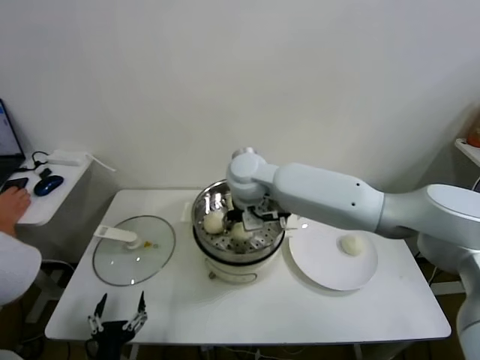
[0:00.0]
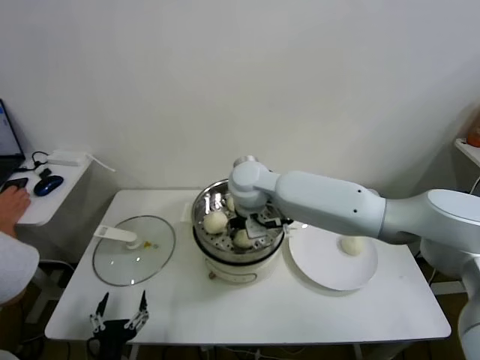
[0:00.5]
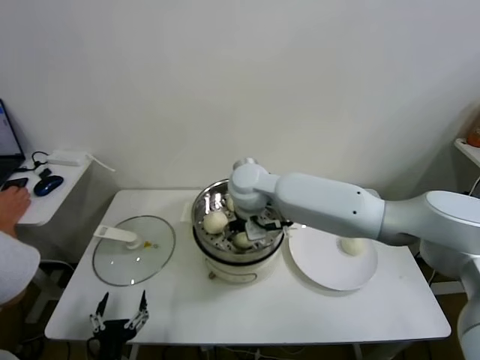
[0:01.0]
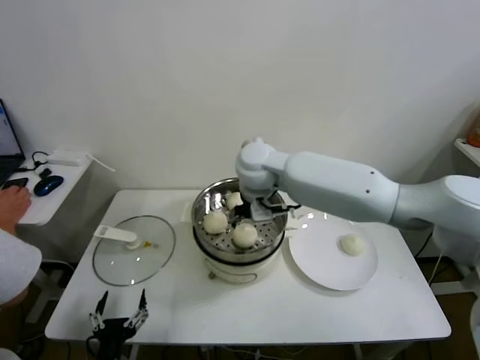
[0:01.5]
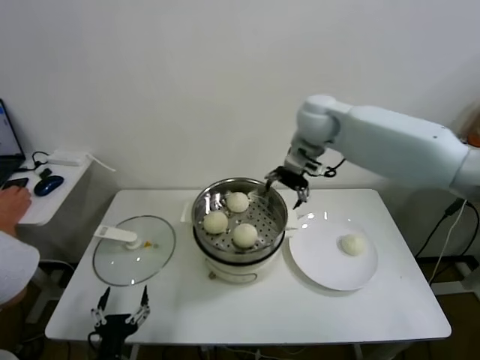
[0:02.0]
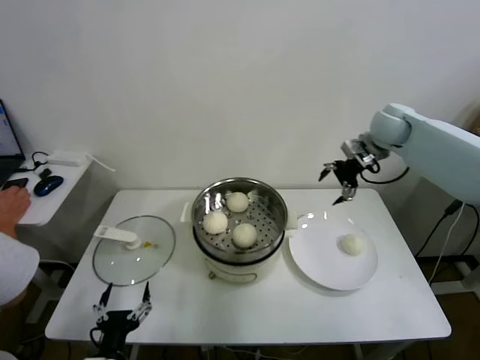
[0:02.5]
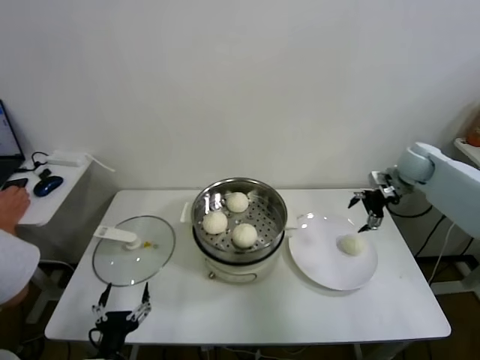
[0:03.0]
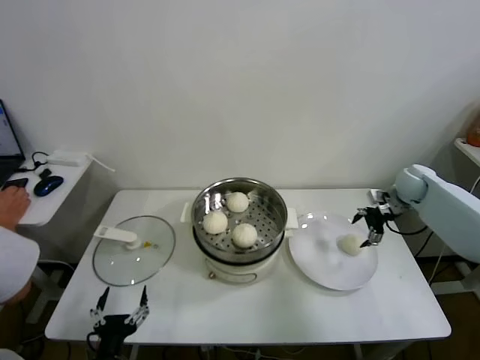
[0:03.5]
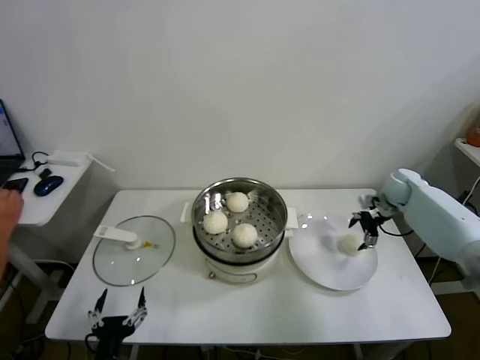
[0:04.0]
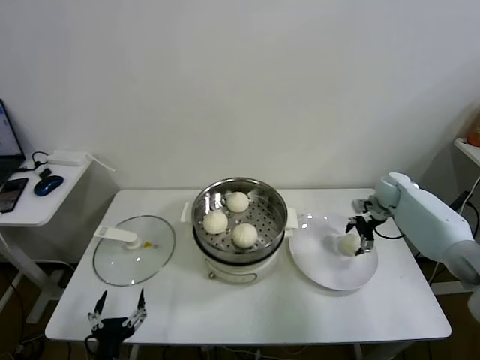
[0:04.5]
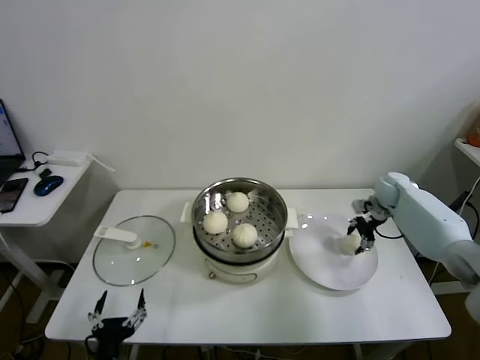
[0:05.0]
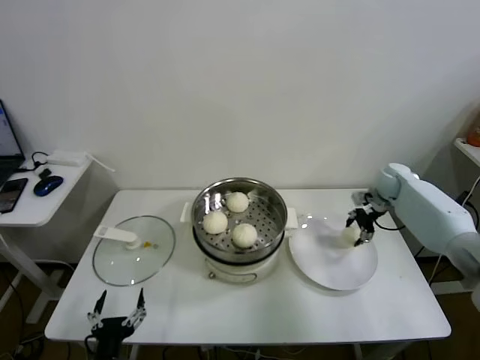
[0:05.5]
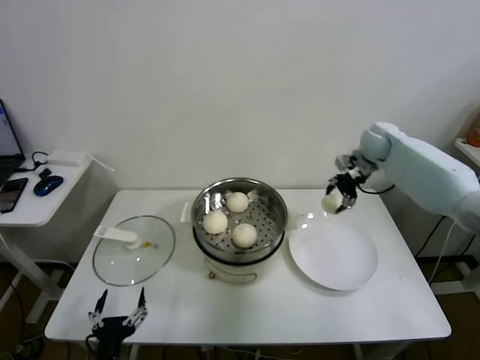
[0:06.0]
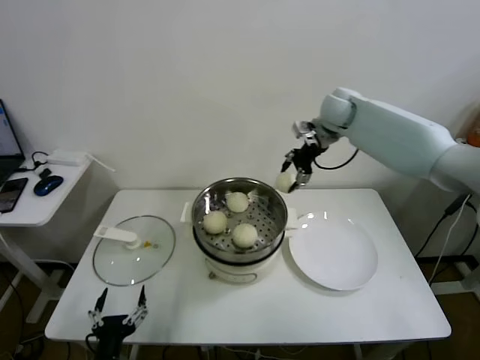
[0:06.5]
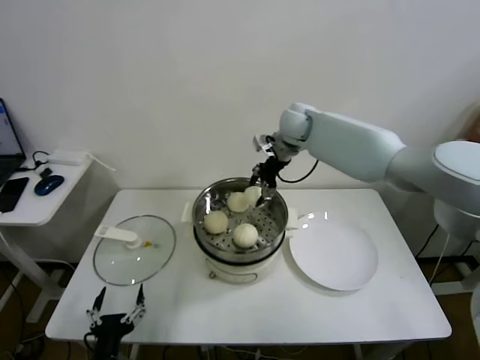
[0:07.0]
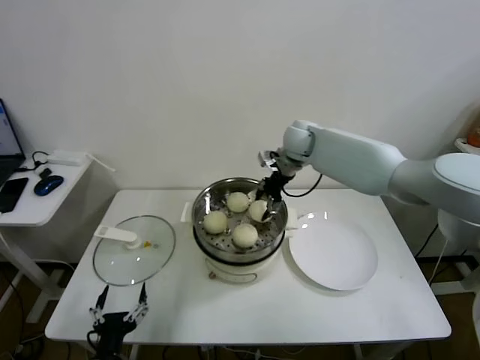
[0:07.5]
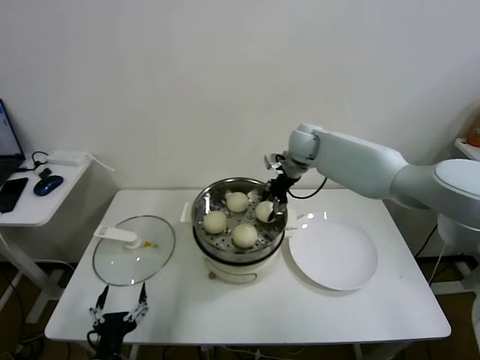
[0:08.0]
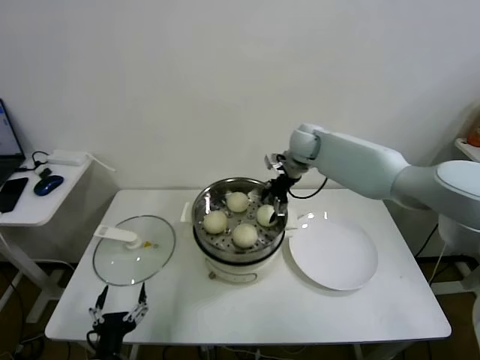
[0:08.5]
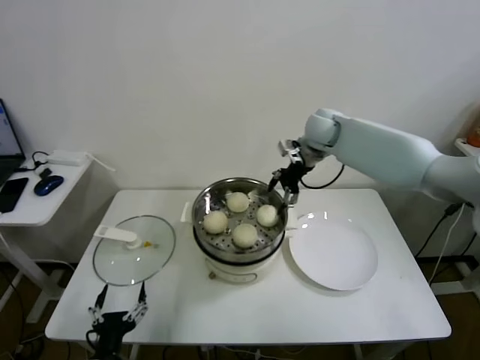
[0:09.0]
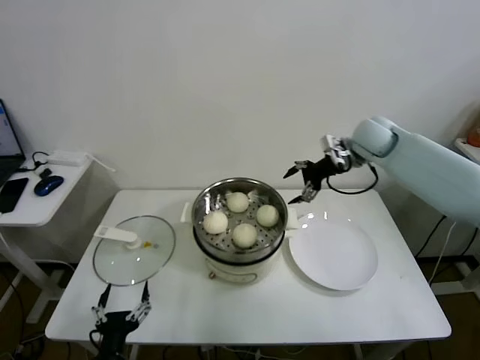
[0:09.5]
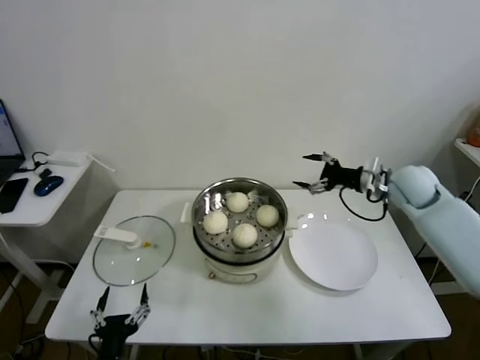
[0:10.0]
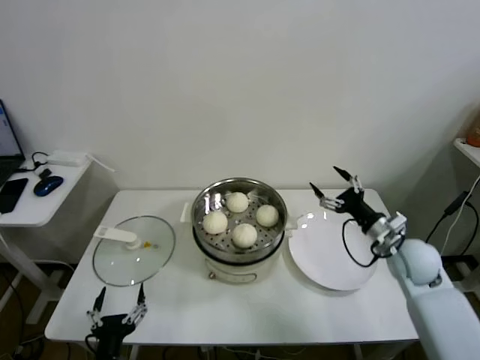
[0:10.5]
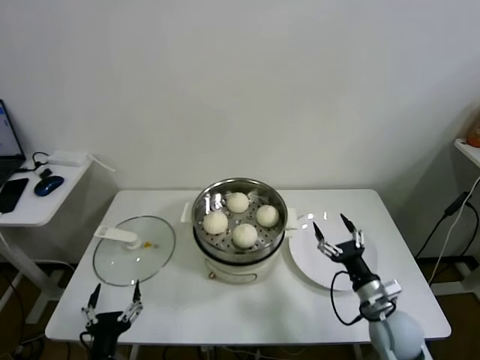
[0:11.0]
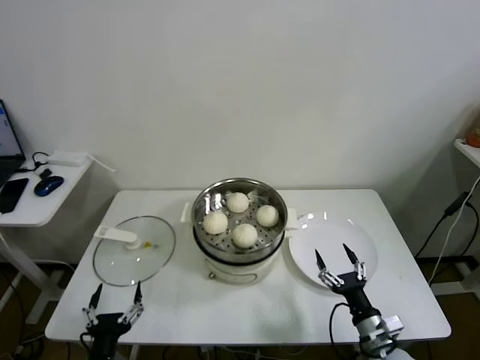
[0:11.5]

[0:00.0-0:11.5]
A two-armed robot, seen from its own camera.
Task of the whole recording: take steamed baozi put them in steamer.
Step, 0:01.5 to 0:05.0: Grasp the baozi in the plate with right gripper.
Step, 0:05.5 to 0:08.5: Place the baozi on the steamer with right gripper.
0:00.0 to 0:02.0: The right gripper heads to the right, upward and forward, covering about 15 cm, and opens its fingers.
0:02.0 to 0:04.0: The right gripper travels to the right and downward by some 35 cm.
0:04.0 to 0:06.0: The right gripper shifts approximately 15 cm upward and to the left, and closes.
0:06.0 to 0:07.5: The right gripper shifts approximately 20 cm to the left.
0:07.5 to 0:09.5: The right gripper is displaced to the right by approximately 15 cm, and opens up.
0:09.5 to 0:11.5: The right gripper goes approximately 50 cm backward and downward.

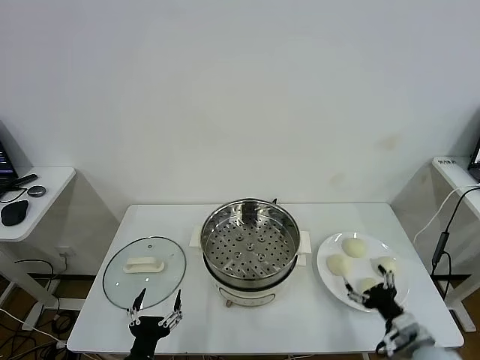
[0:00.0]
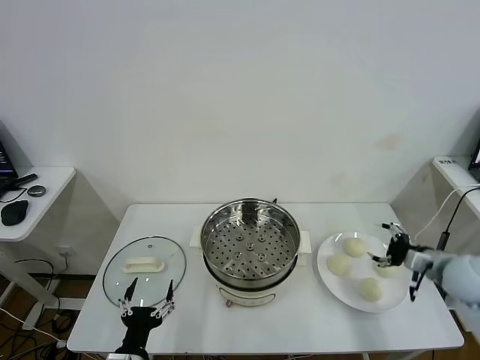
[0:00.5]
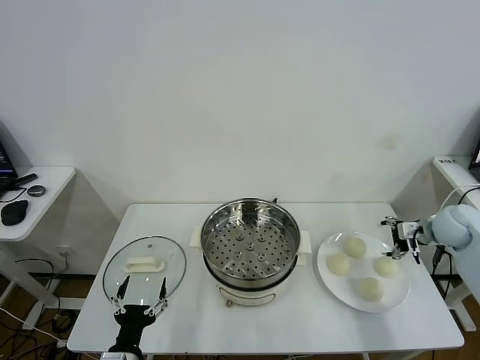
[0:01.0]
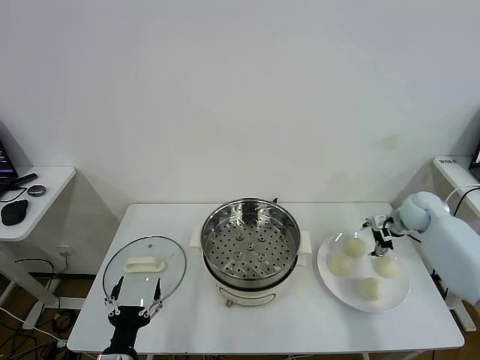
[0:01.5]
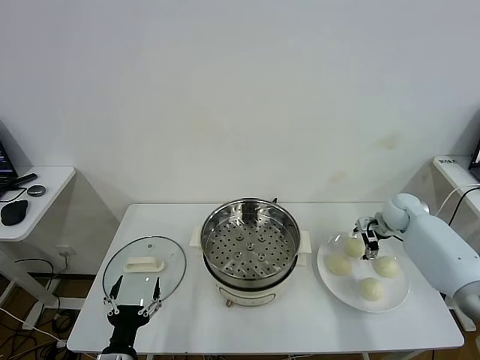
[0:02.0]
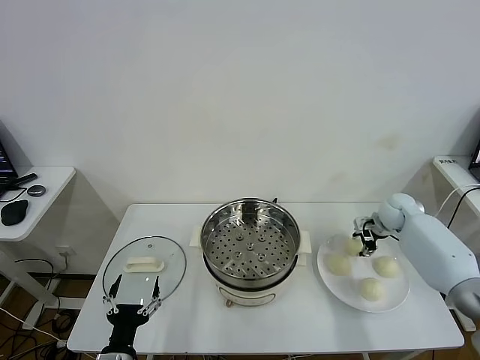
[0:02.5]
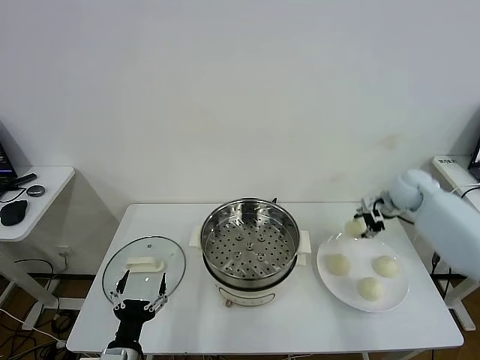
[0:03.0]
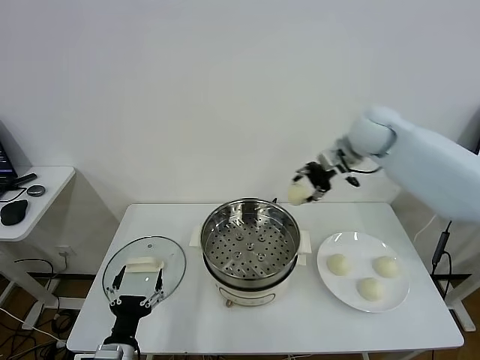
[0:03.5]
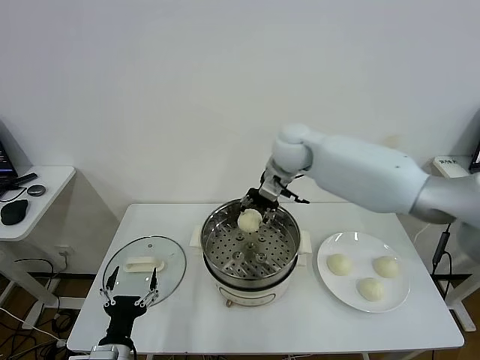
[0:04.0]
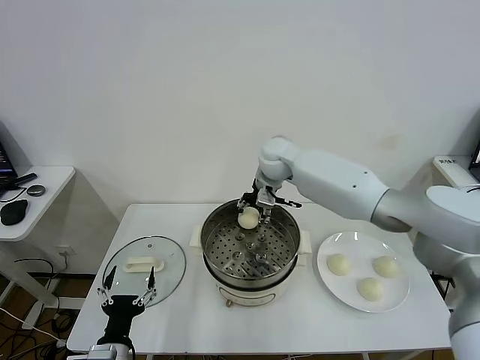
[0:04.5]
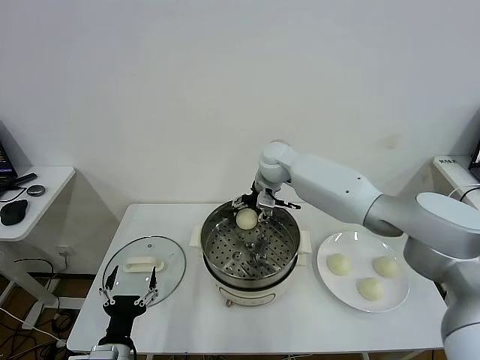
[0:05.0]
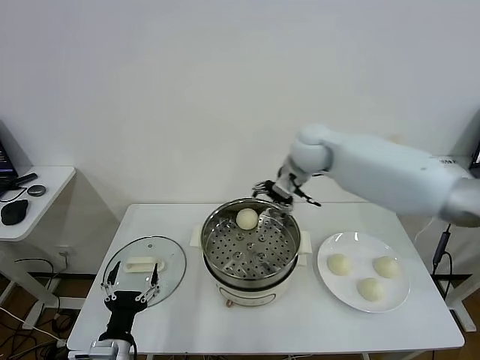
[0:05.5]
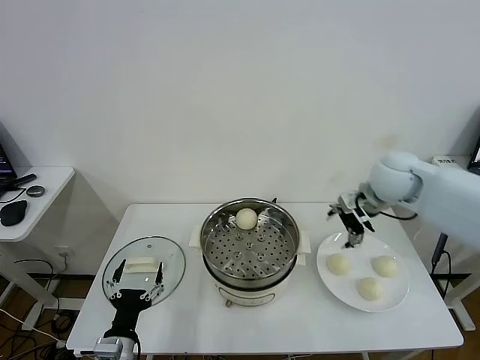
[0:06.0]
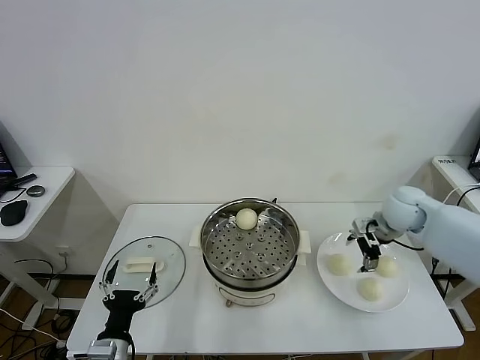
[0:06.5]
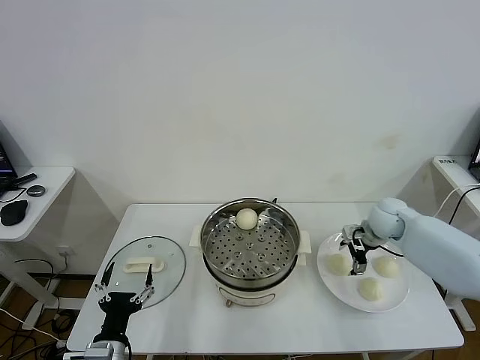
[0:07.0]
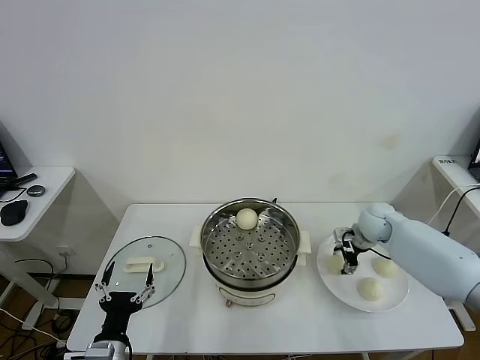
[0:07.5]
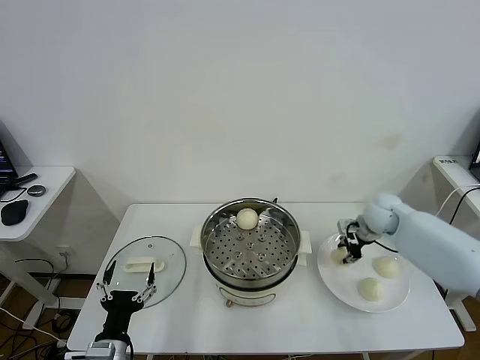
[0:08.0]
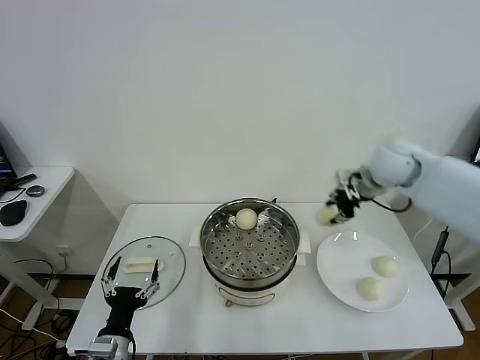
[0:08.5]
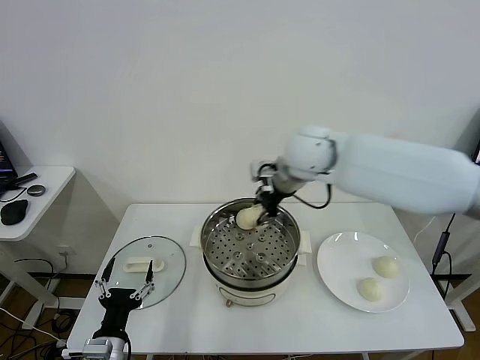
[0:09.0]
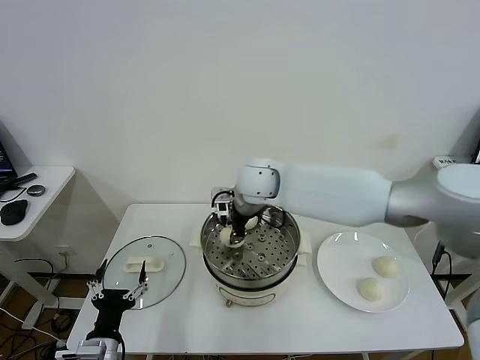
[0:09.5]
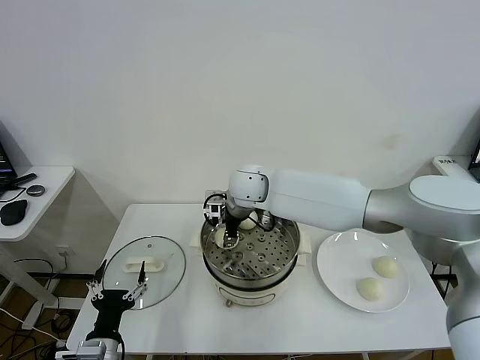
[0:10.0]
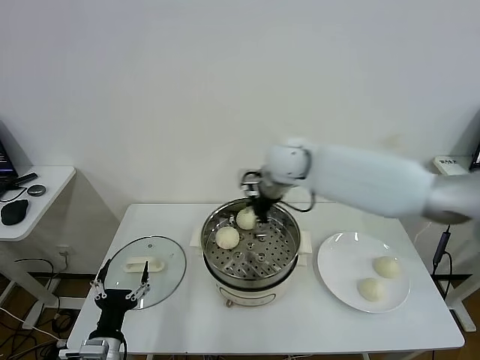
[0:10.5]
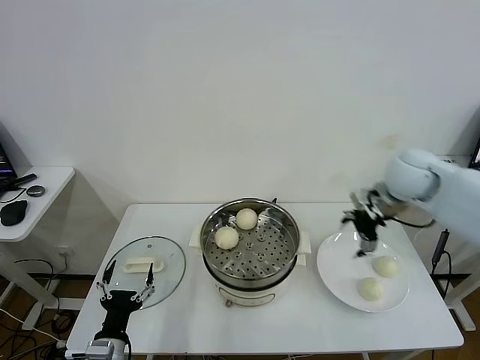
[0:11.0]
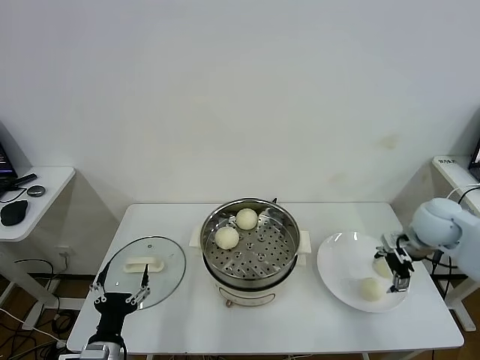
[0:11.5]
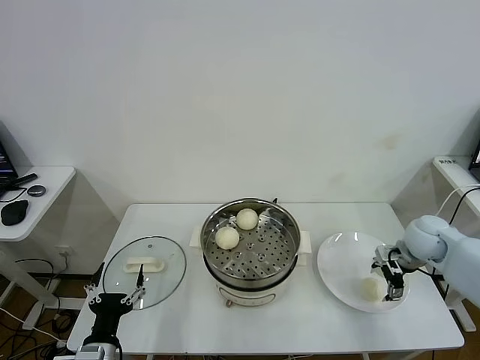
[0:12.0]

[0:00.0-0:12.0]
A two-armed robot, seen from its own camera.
Task of the whole recording: take steamed baozi put them in steamer.
Step, 0:00.0 to 0:02.5: Grasp the baozi in the plate with right gripper.
Step, 0:03.0 to 0:05.0: Place the baozi on the steamer with right gripper.
Step, 0:05.5 to 0:07.5: Grasp the baozi in the plate with right gripper.
Step, 0:08.0 to 0:10.0: Place the baozi on the steamer with right gripper.
0:02.0 to 0:04.0: The right gripper shifts approximately 35 cm to the left and upward, and closes its fingers.
0:04.0 to 0:06.0: The right gripper heads to the right, covering approximately 20 cm, and opens up.
0:06.0 to 0:08.0: The right gripper shifts about 15 cm downward, and closes its fingers.
0:08.0 to 0:10.0: The right gripper goes roughly 35 cm to the left, and opens up.
0:10.0 to 0:12.0: The right gripper shifts roughly 40 cm to the right, and opens its fingers.

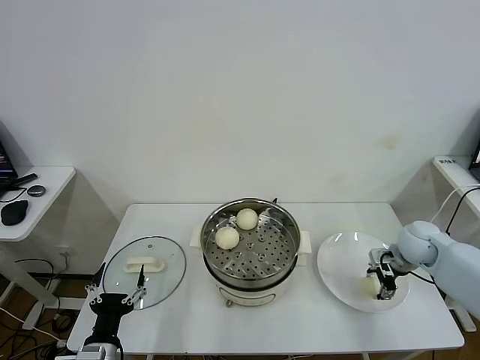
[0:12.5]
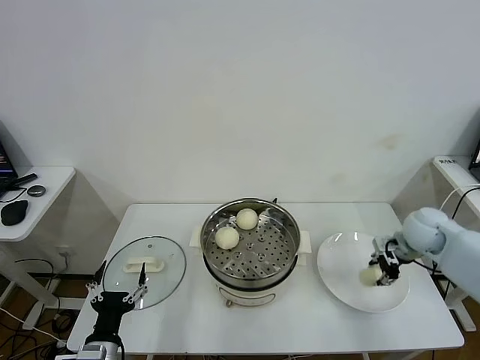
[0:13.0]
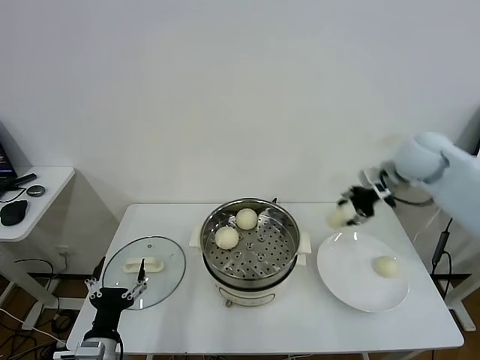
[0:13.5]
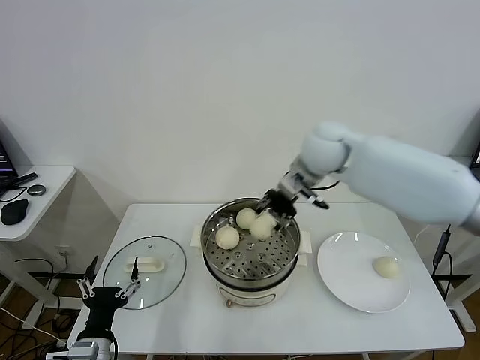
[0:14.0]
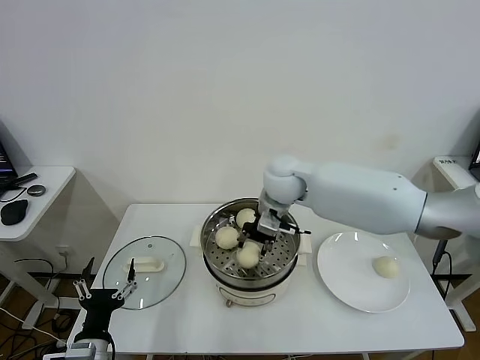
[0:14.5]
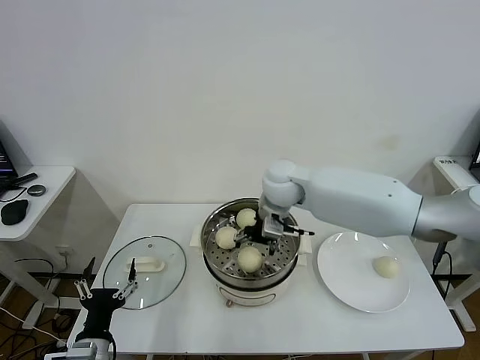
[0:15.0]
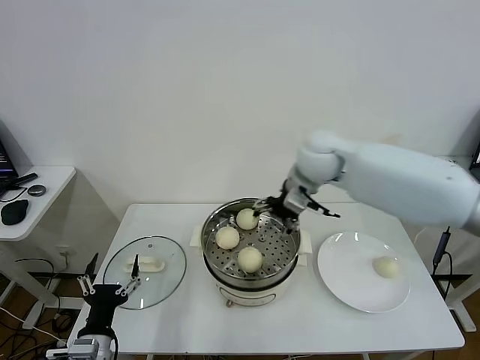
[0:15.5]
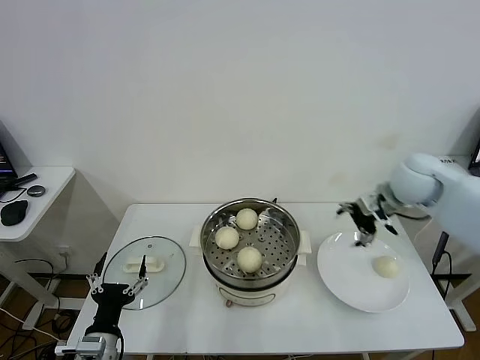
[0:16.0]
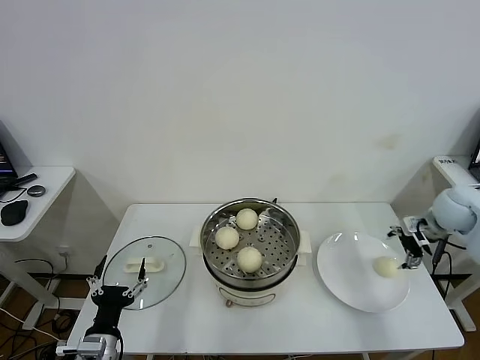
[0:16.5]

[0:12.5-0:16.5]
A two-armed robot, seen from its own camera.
Task of the whole recording: take steamed baozi put them in steamer.
Step, 0:13.0 to 0:15.0: Place the baozi on the steamer with right gripper.
0:12.5 to 0:14.5: The right gripper is displaced to the left and upward by approximately 35 cm, and closes up.
0:14.5 to 0:16.5: The right gripper travels to the right by some 40 cm, and opens.
